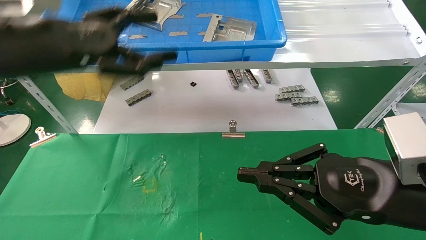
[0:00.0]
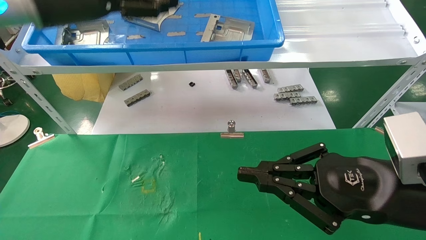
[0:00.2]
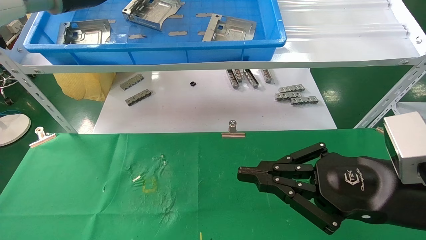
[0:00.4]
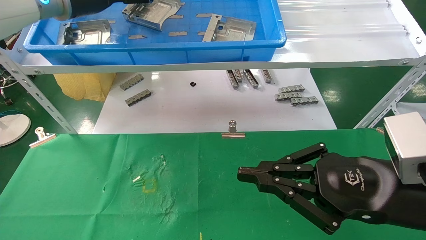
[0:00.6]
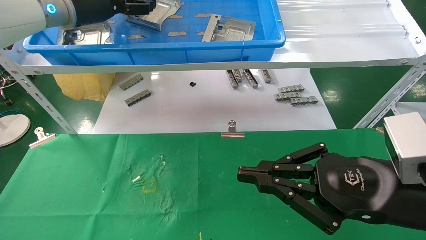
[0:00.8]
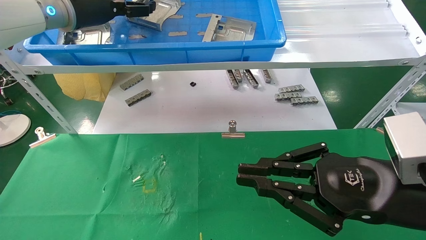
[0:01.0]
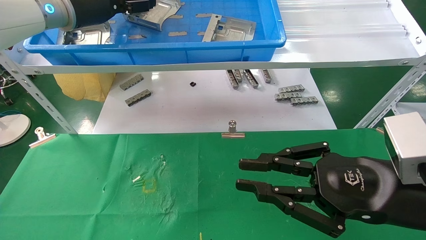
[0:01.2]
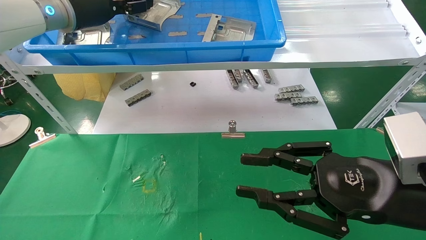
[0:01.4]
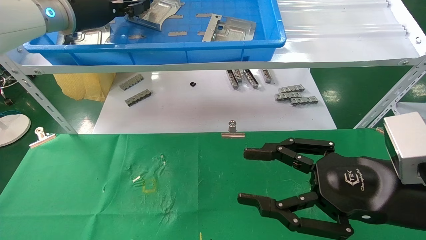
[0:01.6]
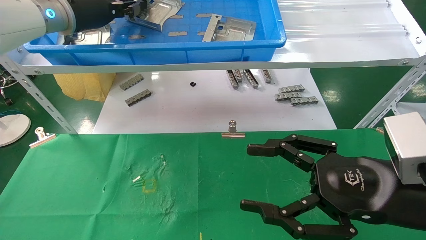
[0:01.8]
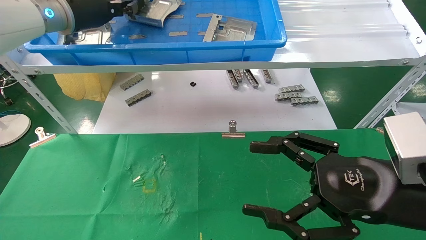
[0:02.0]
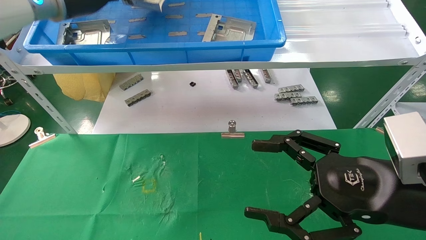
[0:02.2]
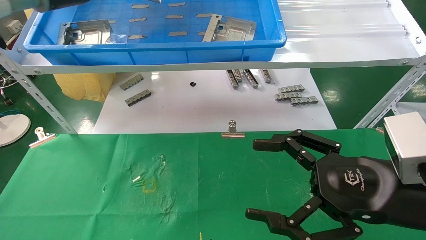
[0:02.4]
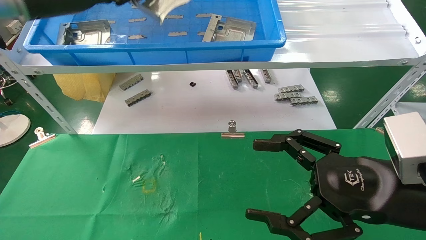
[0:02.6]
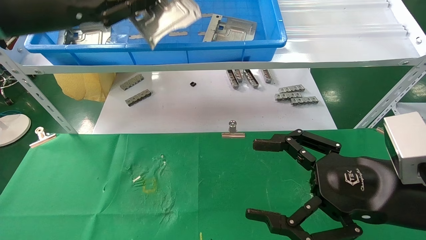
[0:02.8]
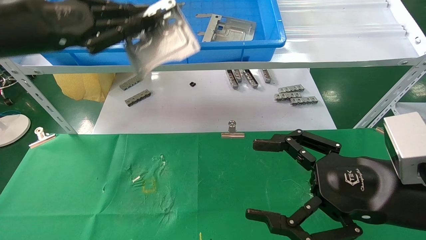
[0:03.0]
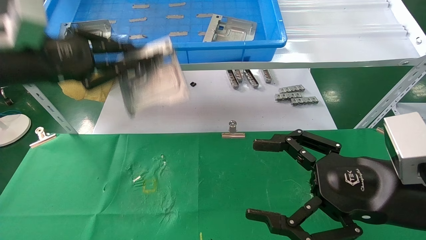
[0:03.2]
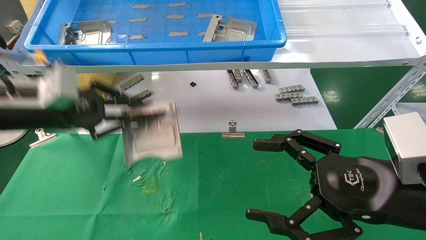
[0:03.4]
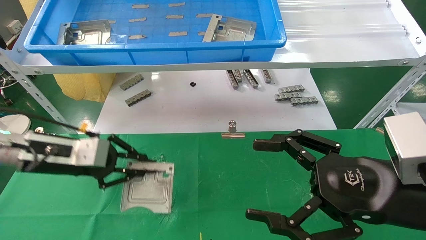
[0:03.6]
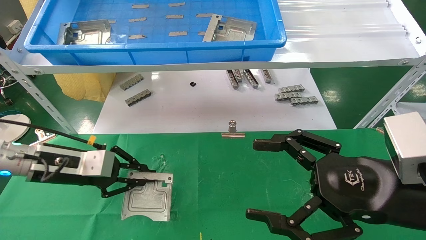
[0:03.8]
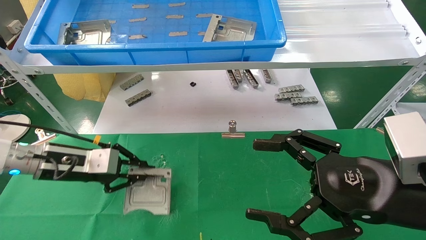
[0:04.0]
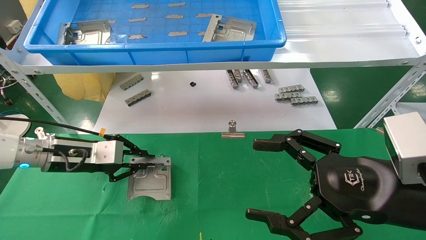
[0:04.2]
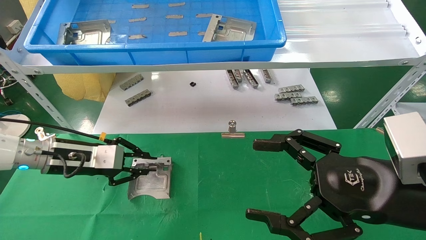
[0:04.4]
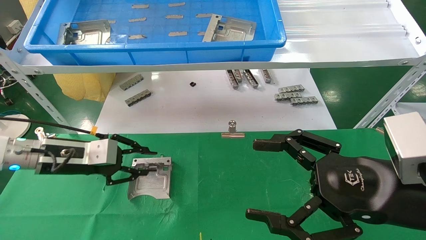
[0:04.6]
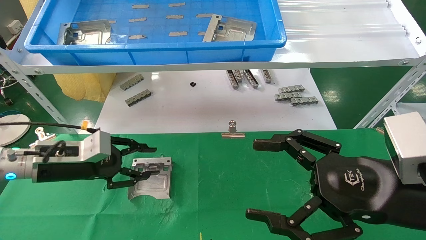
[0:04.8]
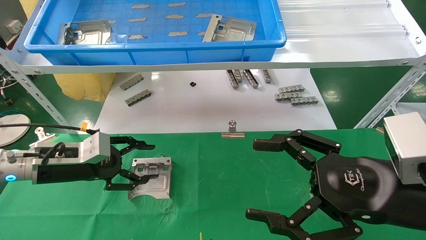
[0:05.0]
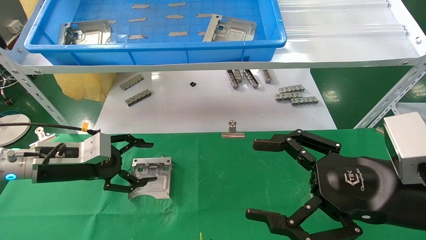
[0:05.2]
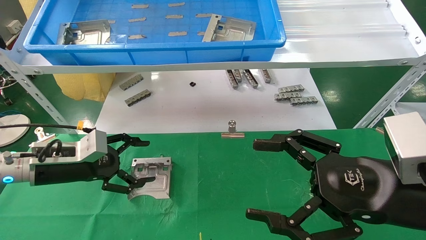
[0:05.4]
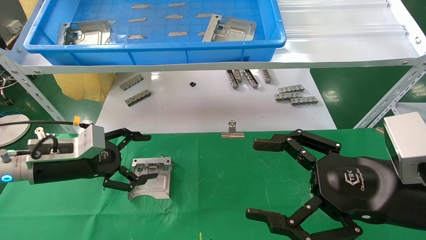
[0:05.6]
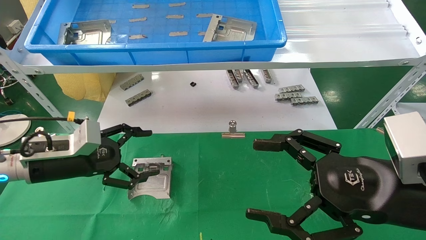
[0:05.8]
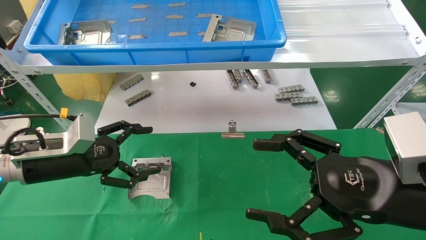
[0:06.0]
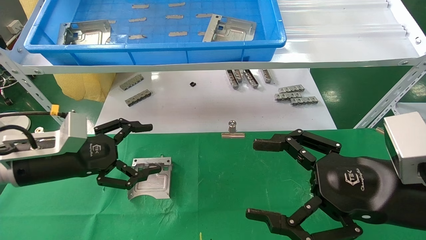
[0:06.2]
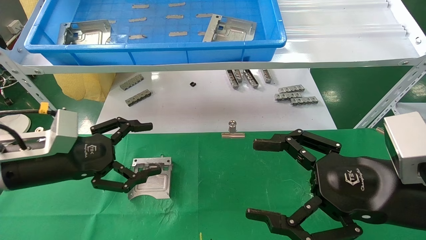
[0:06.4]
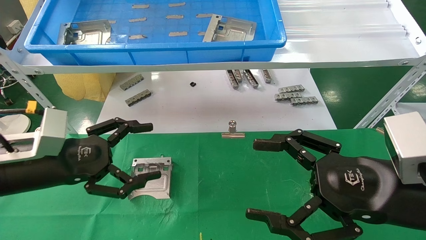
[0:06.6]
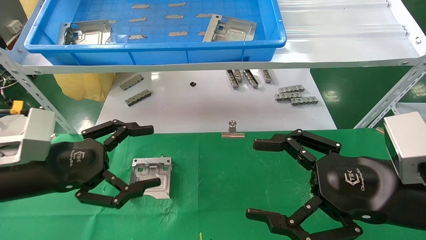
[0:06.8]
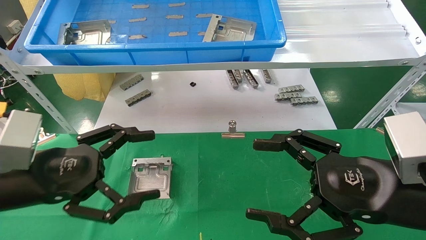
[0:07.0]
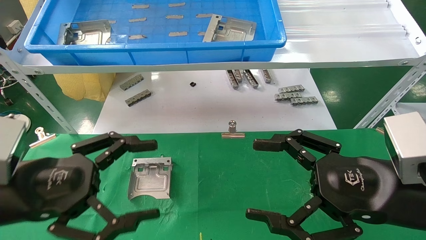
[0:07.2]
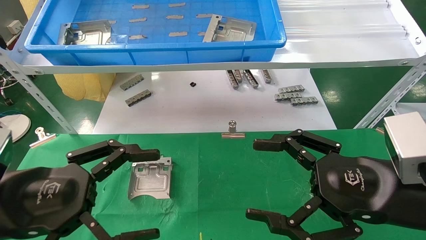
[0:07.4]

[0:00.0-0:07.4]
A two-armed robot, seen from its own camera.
Task of the whole recording: use the mechanical arm to pick up the parts and place them on the table.
Step, 0:00.0 to 0:01.8: Pick up the hard drive bracket from the feeding area.
Step, 0:02.0 to 0:04.6: Place the hard drive bracket into the box.
0:00.0 to 0:01.4: The left gripper moves forward, roughly 15 cm, and closes up.
0:01.4 to 0:03.0: The left gripper shifts some 10 cm backward, and closes. Meanwhile the right gripper opens its fingers.
0:03.0 to 0:04.4: The left gripper heads downward, covering some 20 cm.
0:04.4 to 0:06.0: The left gripper opens.
0:06.0 to 0:07.4: The left gripper is displaced backward by approximately 15 cm.
